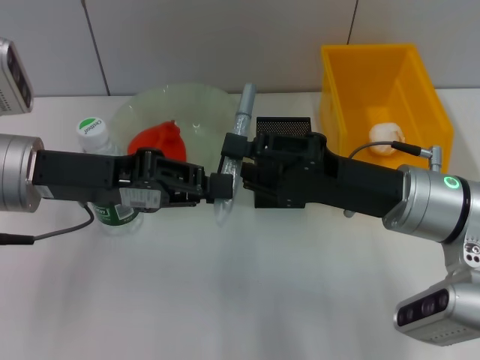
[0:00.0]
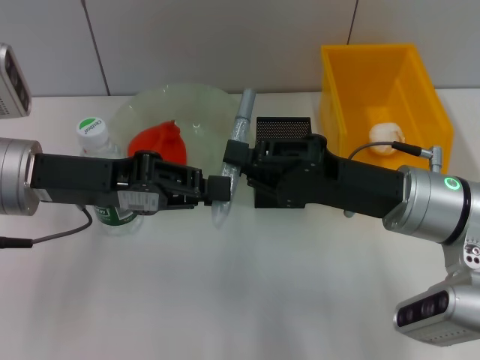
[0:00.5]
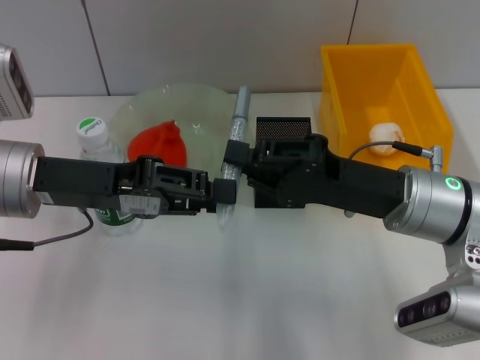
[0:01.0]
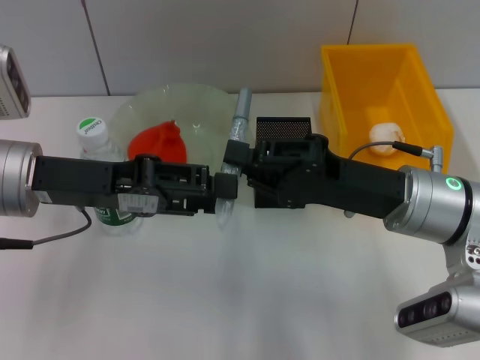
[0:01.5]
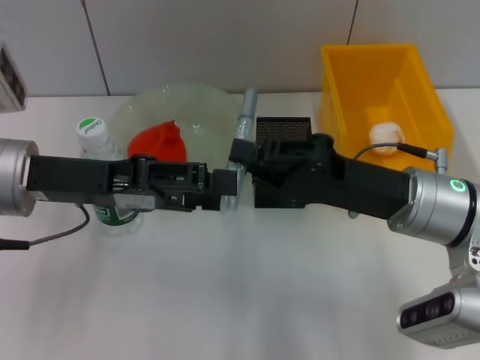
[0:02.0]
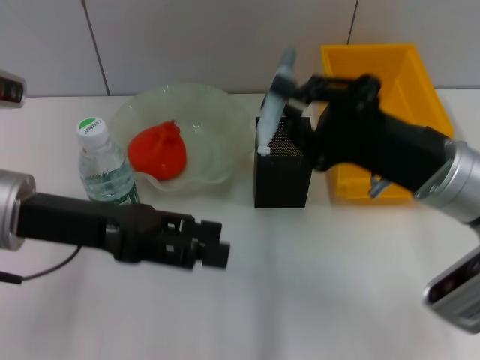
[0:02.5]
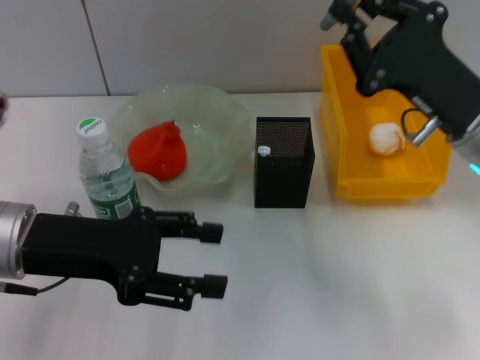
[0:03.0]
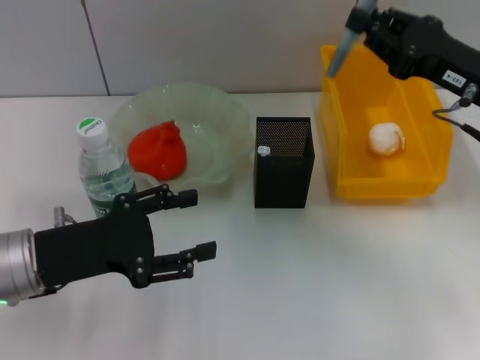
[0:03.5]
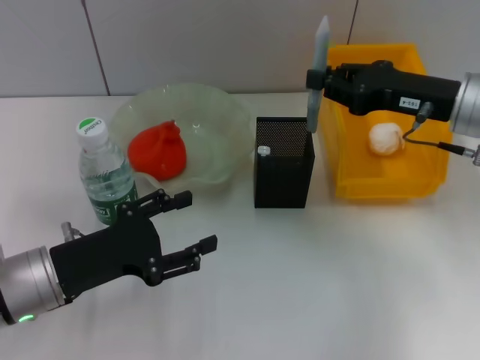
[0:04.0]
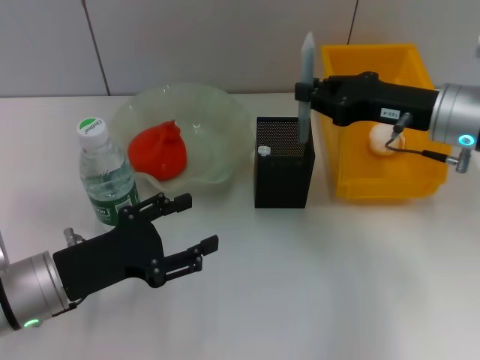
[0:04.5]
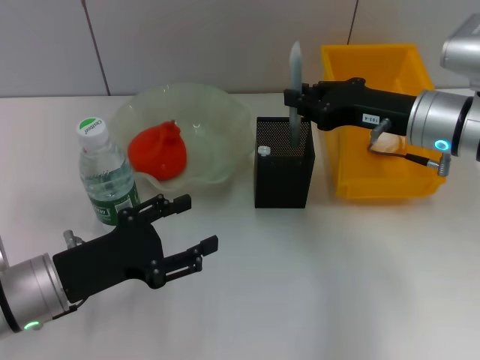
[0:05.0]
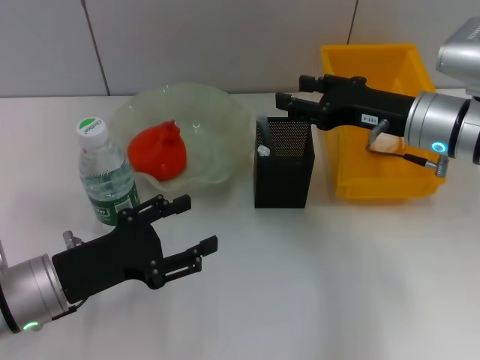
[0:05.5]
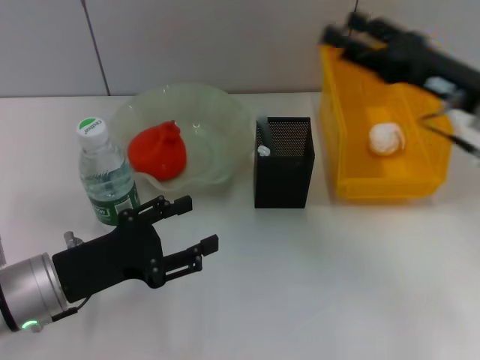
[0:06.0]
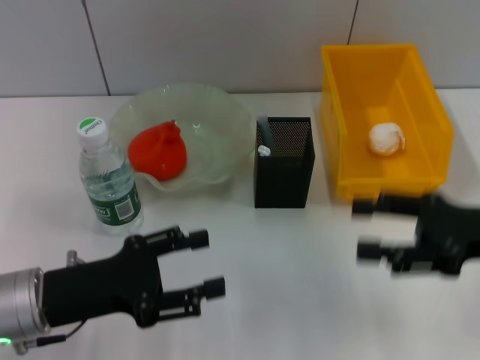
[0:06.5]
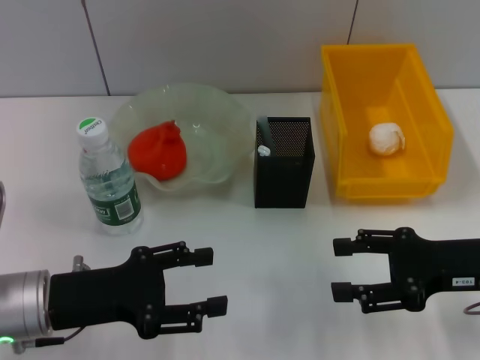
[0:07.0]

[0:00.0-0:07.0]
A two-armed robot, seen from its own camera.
Step, 0:01.0 to 0:05.0: Place the gray glue into the pen holder with the right hand.
0:00.0 to 0:02.0: The right gripper closes up, while the left gripper opens.
0:02.0 to 0:03.5: The right gripper shifts about 10 cm to the right and forward; the left gripper goes approximately 10 cm downward.
0:03.5 to 0:05.0: The right gripper is displaced to the left by approximately 5 cm.
0:05.0 to 0:07.0: The right gripper is displaced backward and to the right by some 15 cm, and opens its fingers.
